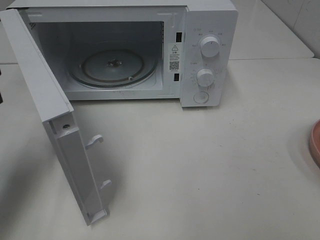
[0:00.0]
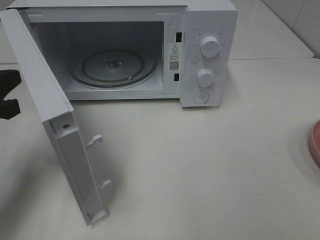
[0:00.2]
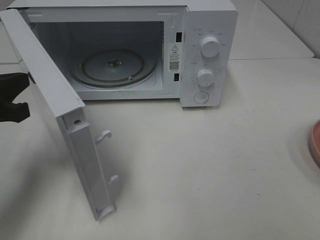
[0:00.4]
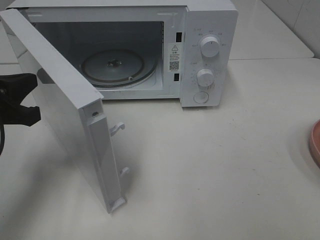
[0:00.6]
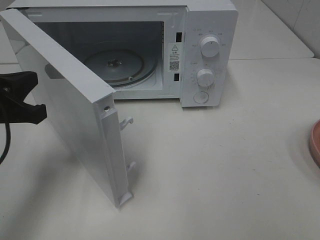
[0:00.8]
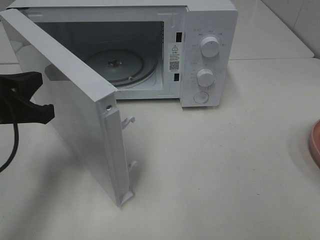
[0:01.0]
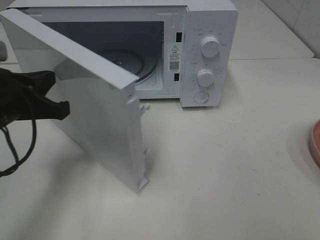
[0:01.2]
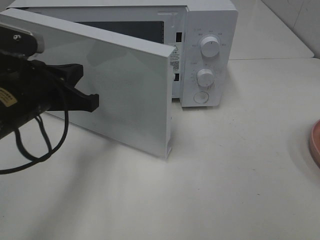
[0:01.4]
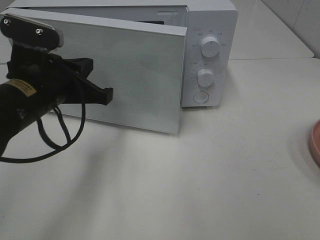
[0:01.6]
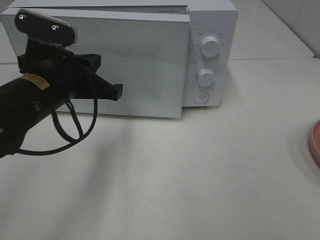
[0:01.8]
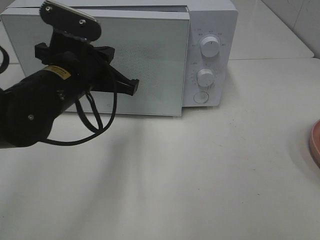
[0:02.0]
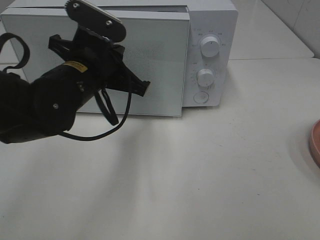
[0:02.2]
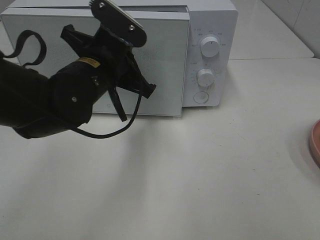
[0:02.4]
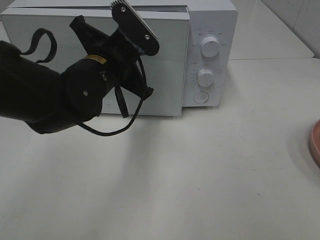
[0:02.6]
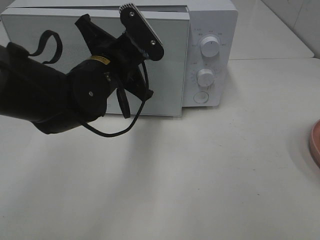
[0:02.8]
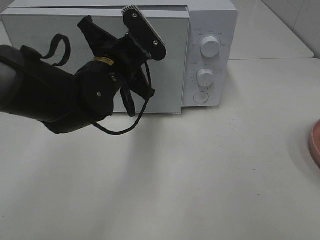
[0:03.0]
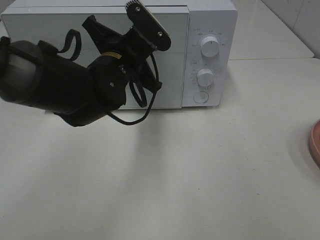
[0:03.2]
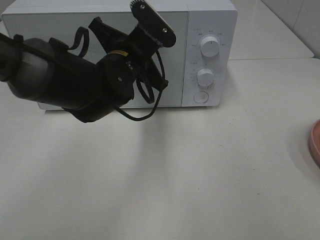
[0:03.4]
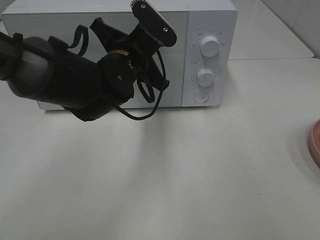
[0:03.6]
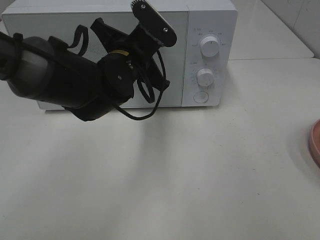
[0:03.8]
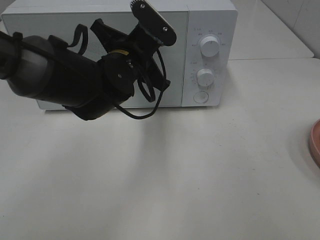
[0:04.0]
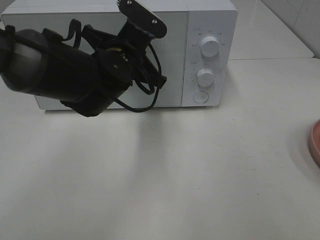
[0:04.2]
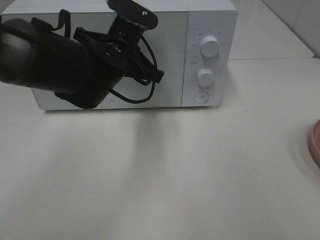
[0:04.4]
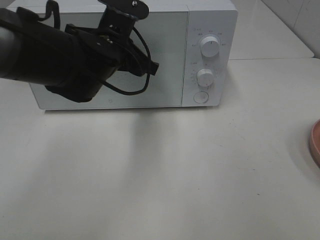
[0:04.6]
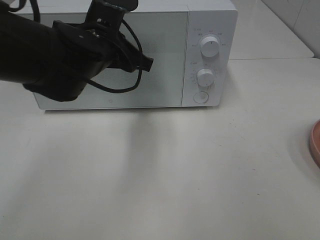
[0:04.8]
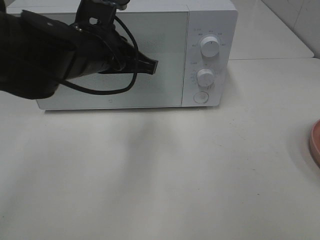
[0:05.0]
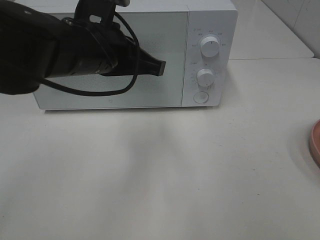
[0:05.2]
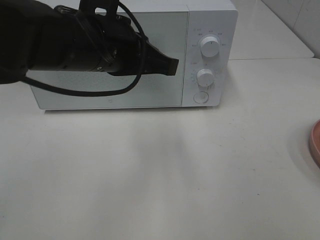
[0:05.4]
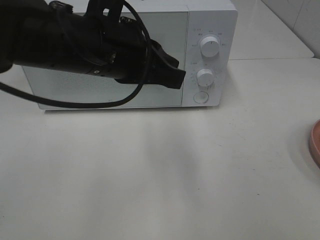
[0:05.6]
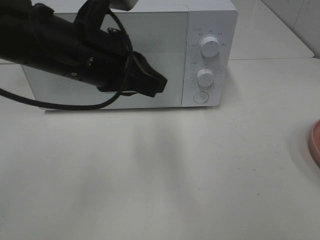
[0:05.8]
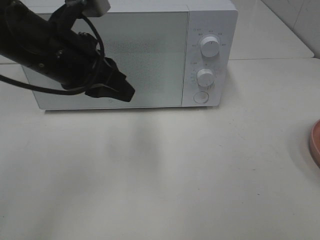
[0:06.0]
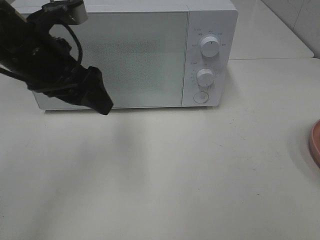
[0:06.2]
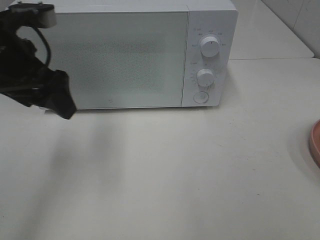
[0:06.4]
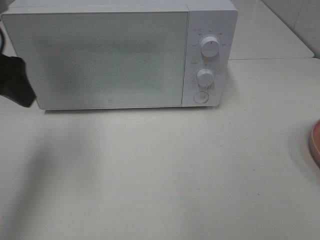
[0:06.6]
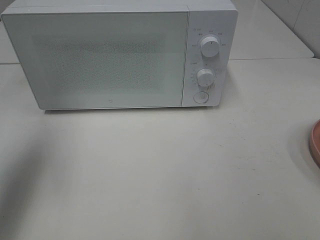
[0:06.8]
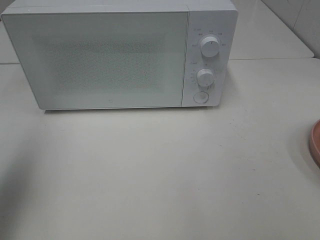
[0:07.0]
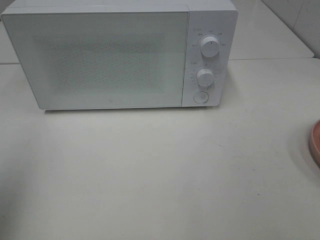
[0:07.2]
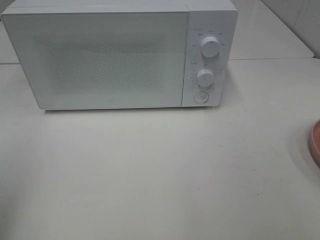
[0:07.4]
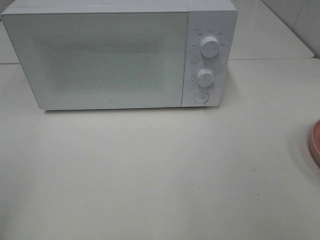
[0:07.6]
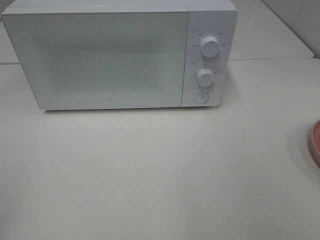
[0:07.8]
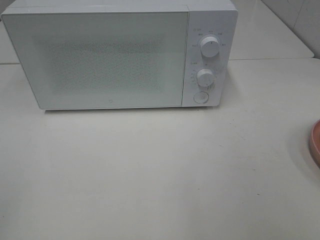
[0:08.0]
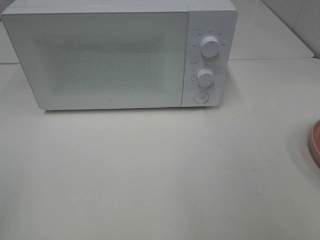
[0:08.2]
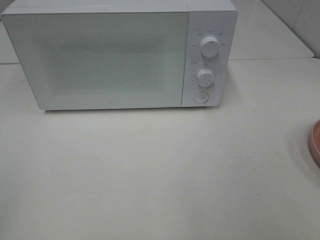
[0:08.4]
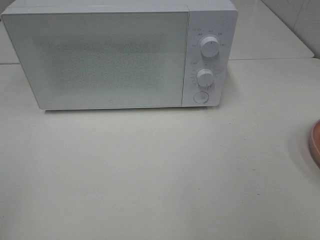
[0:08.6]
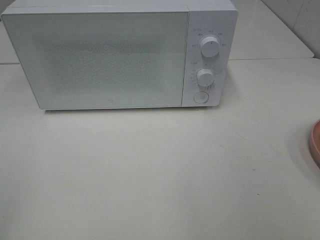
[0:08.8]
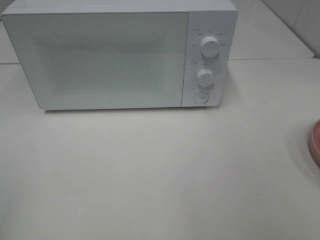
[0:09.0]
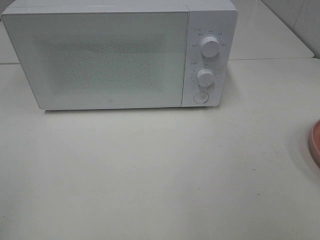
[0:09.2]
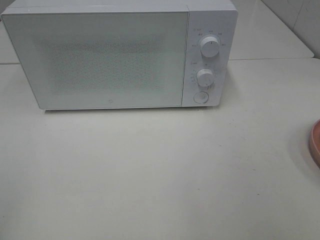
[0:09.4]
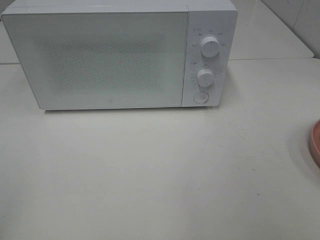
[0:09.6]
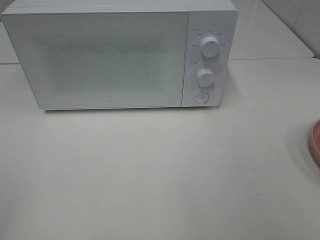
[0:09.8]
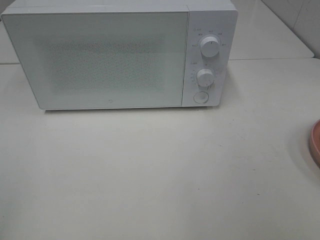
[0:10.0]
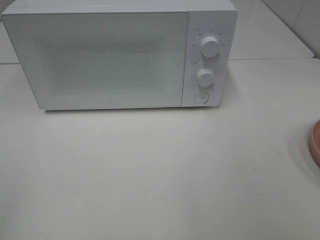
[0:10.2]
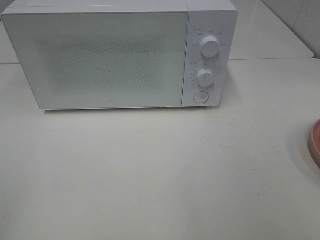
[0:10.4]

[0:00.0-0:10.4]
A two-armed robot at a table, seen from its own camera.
Task of the whole recording: Heat Sandwich.
Step, 0:00.0 to 0:05.2: Left hand: close the microwave door.
0:00.0 to 0:01.4: The left gripper is displaced to the right by roughly 10 cm.
0:01.4 to 0:03.0: The left gripper travels to the right and forward by roughly 15 cm.
0:04.4 to 0:06.0: The left gripper travels to the left, upward and backward by approximately 10 cm.
0:06.0 to 0:07.4: The left gripper heads backward and to the left, covering about 30 cm, and opens up.
0:09.0 to 0:10.4: Neither gripper changes place.

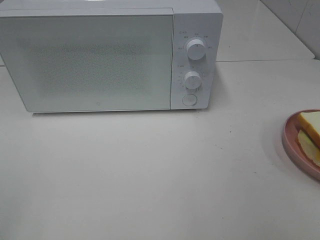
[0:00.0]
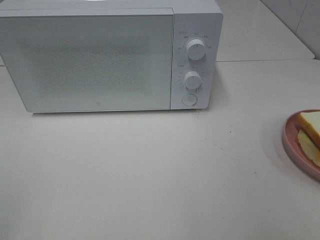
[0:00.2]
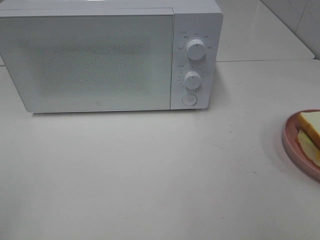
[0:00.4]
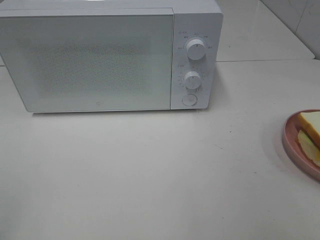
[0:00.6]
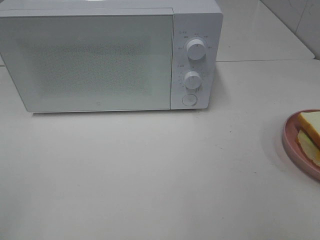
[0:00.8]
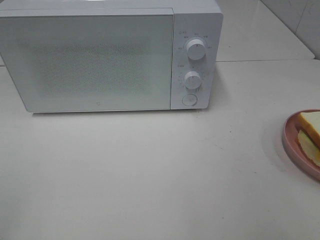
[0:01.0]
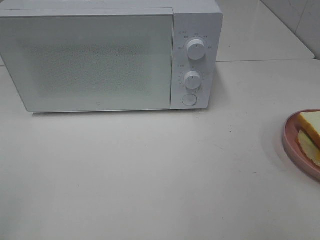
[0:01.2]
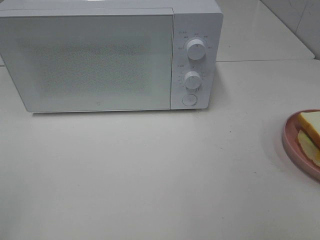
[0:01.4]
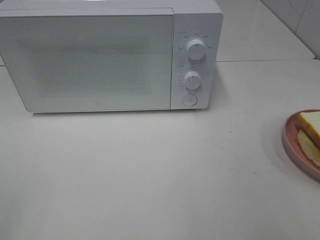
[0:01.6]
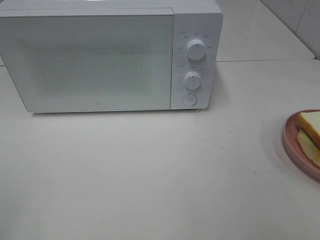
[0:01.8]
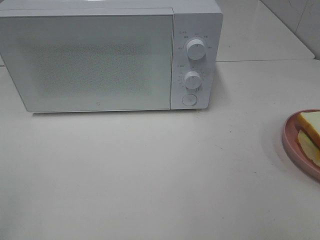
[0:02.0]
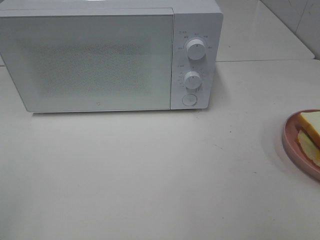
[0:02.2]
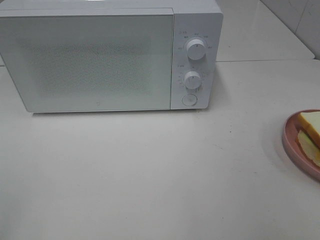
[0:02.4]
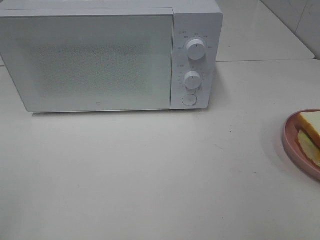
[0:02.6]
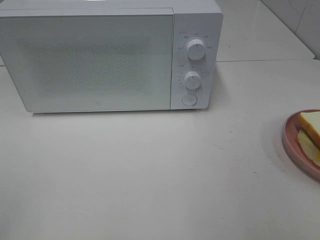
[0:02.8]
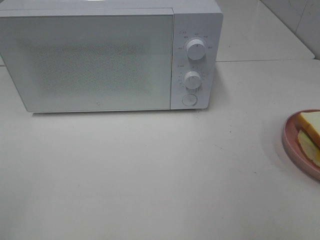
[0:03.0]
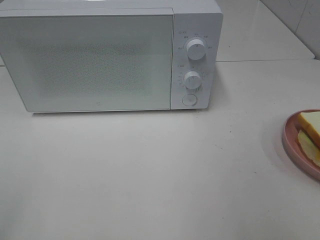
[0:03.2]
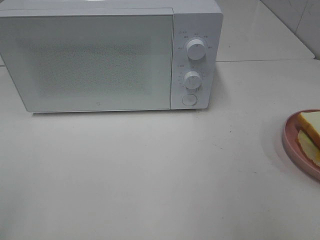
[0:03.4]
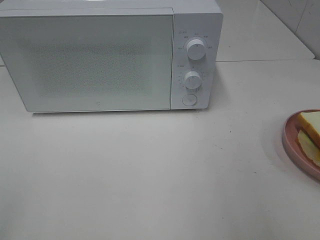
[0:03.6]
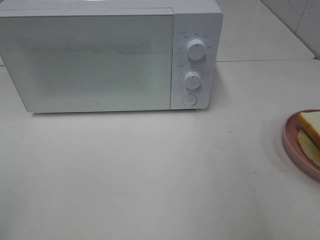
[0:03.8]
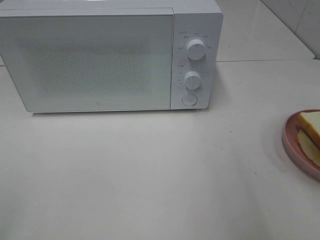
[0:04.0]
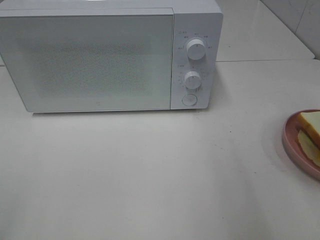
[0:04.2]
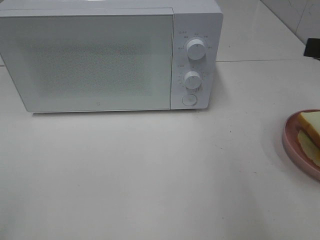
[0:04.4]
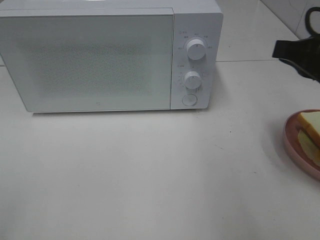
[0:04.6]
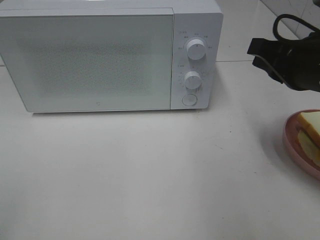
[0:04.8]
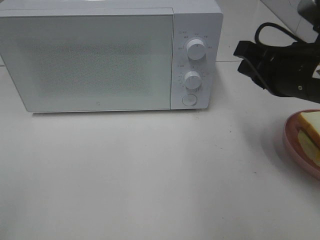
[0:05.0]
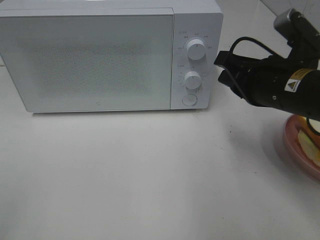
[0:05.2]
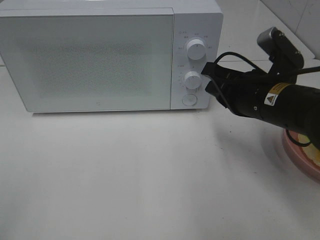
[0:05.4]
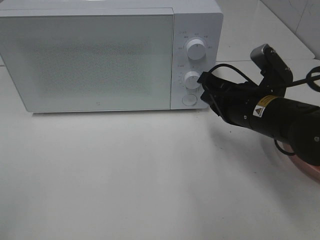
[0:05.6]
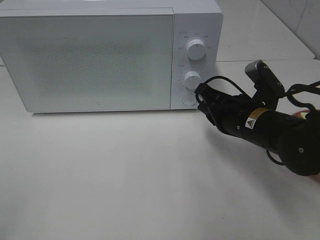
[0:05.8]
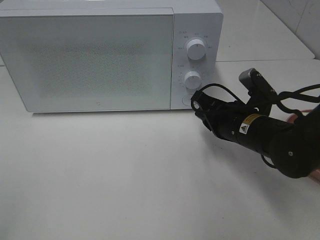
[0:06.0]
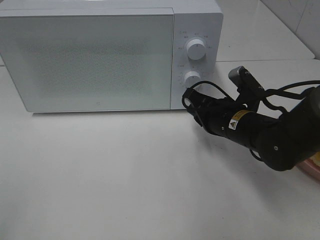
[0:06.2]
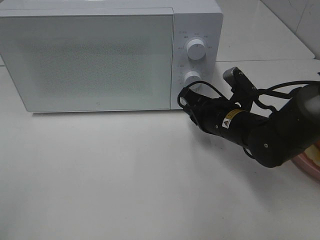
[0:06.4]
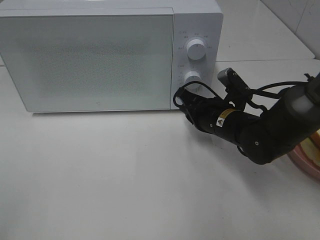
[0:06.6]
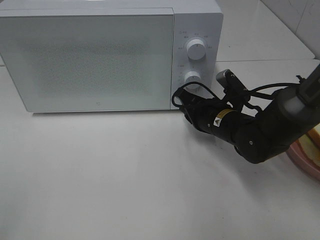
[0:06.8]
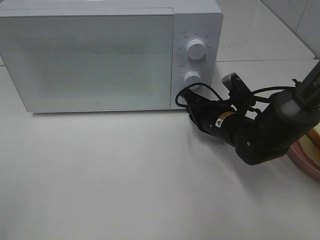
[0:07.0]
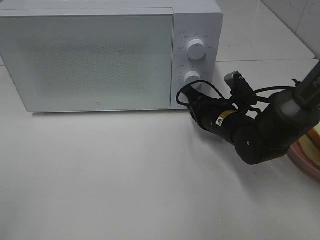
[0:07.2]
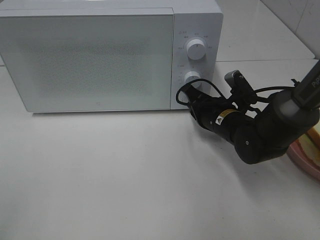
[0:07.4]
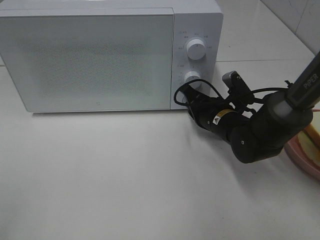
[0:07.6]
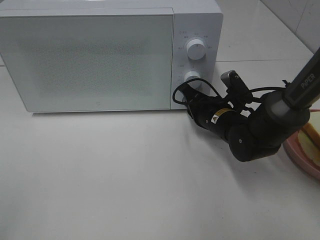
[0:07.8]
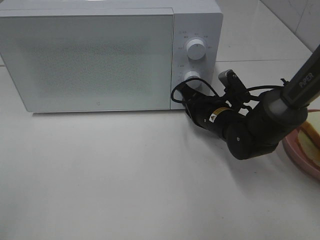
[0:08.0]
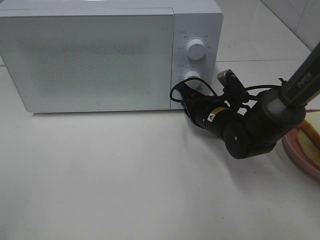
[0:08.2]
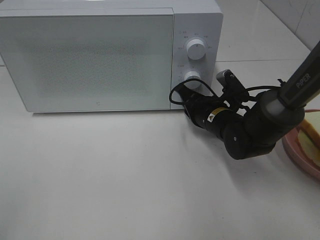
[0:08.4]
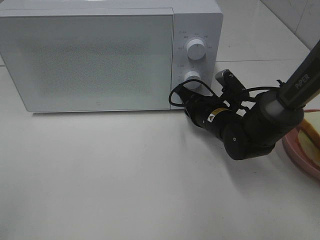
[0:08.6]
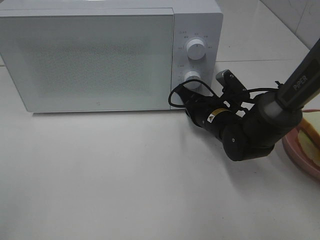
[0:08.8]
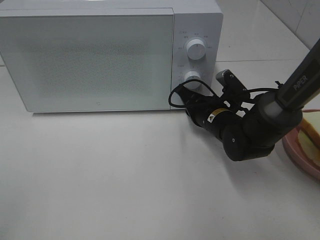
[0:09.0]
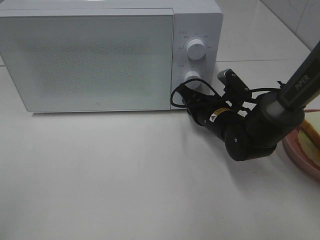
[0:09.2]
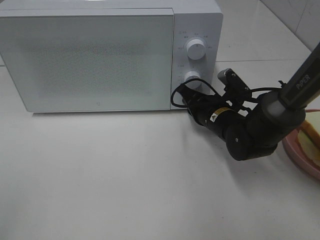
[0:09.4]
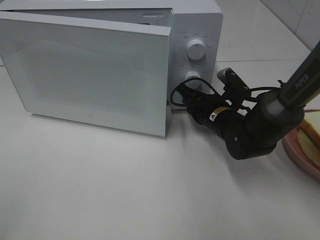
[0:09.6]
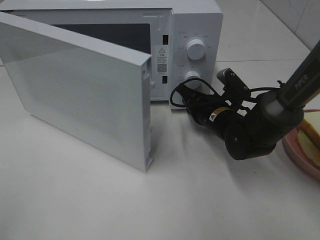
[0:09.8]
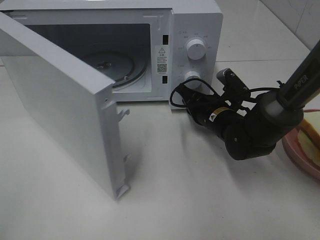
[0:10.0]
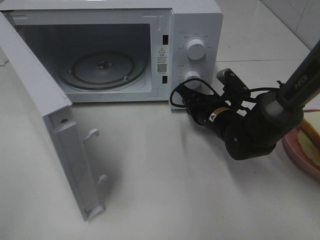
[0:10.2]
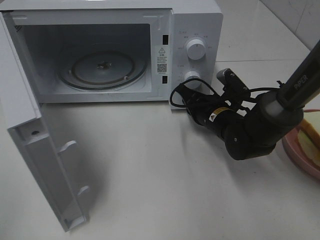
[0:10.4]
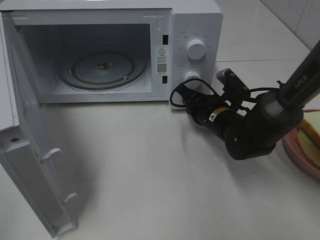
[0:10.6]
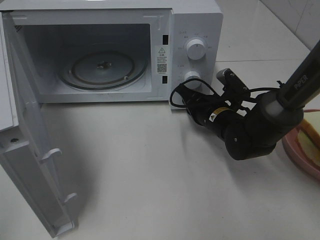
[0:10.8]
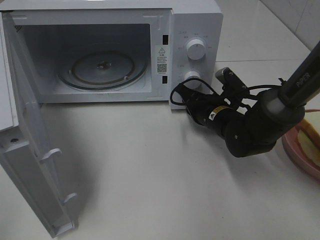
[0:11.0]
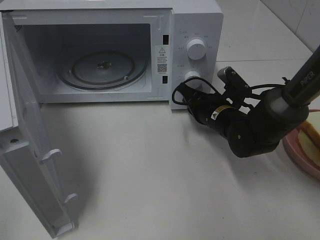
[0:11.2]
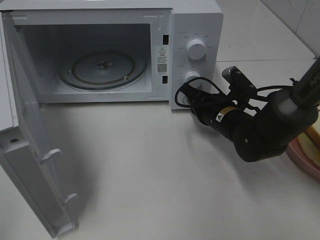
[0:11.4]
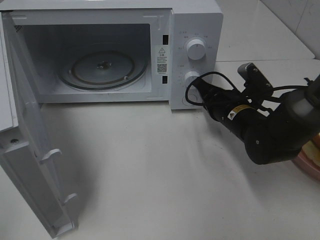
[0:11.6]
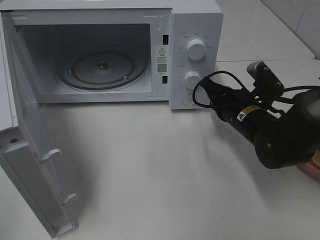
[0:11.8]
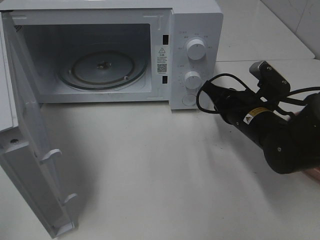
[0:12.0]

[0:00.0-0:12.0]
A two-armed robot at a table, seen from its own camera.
Task of the whole recording: Heat Sandwich.
Step, 0:00.0 to 0:11.8: Right hand: press the switch.
0:00.0 to 0:01.6: The two grippers keep their place.
0:03.0 to 0:04.4: The right gripper heads forward, covering about 15 cm, and closes.
0:04.4 to 0:06.0: The right gripper goes some 20 cm downward, to the left and forward.
0:06.0 to 0:07.6: The right gripper moves forward, approximately 5 cm.
0:07.6 to 0:09.0: There are only small adjustments of the grippers.
0:10.4 to 0:12.0: The right gripper shifts approximately 5 cm backward.
